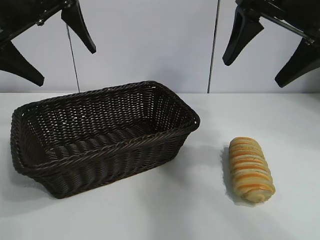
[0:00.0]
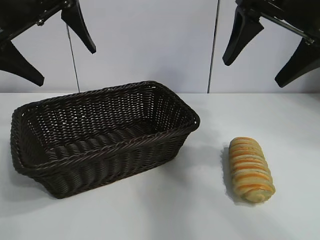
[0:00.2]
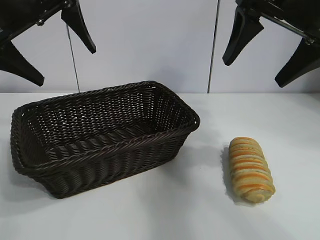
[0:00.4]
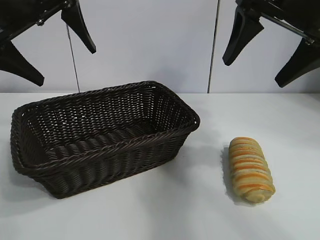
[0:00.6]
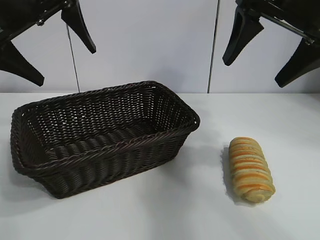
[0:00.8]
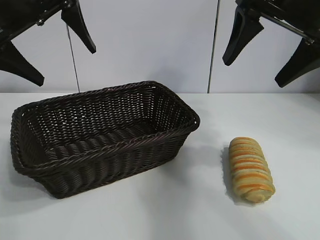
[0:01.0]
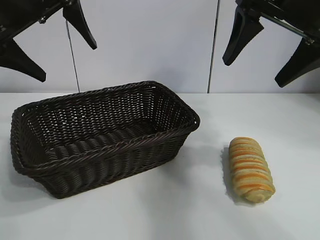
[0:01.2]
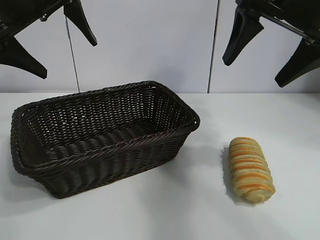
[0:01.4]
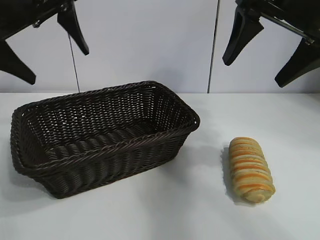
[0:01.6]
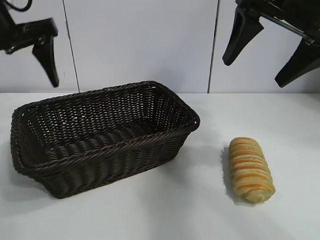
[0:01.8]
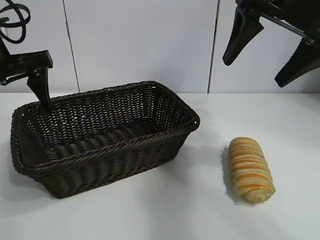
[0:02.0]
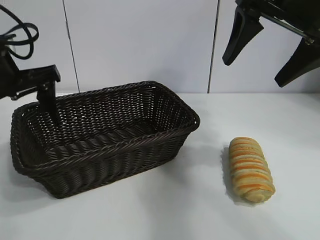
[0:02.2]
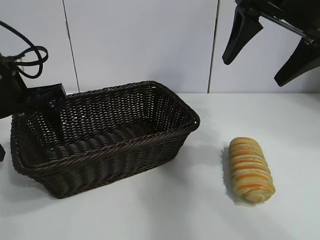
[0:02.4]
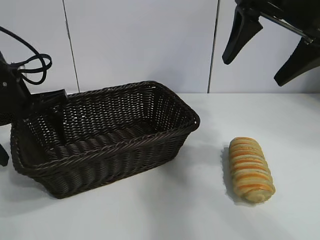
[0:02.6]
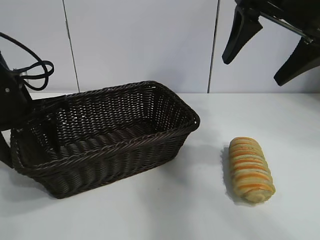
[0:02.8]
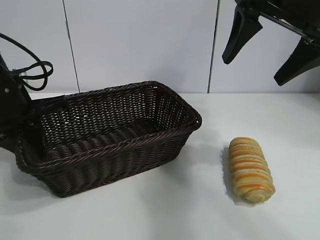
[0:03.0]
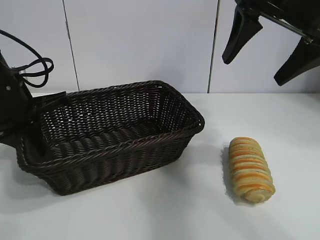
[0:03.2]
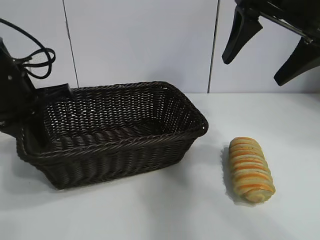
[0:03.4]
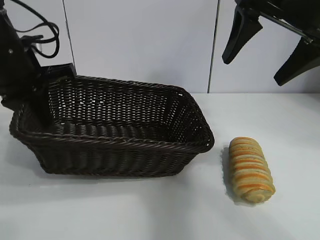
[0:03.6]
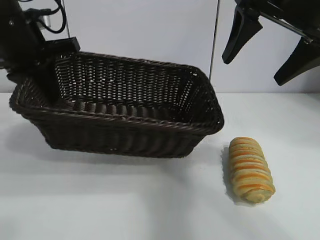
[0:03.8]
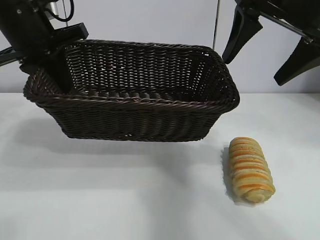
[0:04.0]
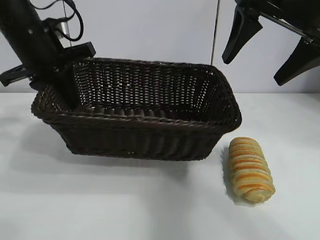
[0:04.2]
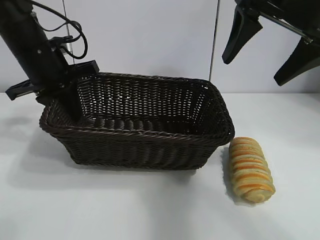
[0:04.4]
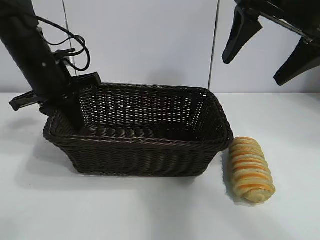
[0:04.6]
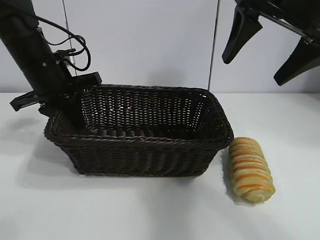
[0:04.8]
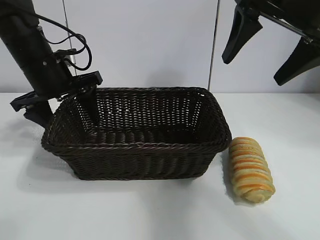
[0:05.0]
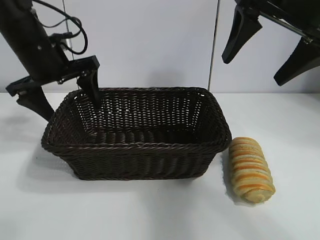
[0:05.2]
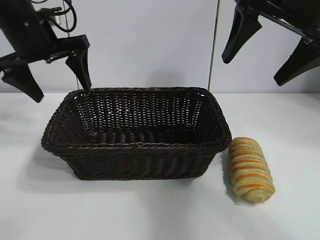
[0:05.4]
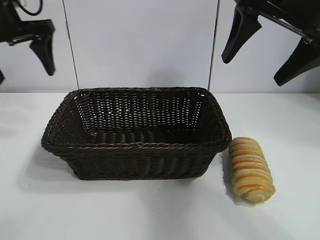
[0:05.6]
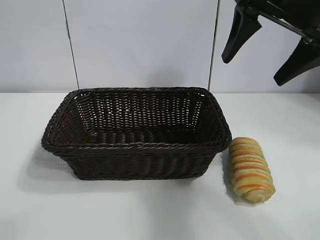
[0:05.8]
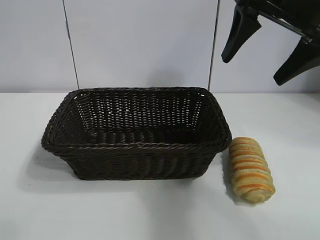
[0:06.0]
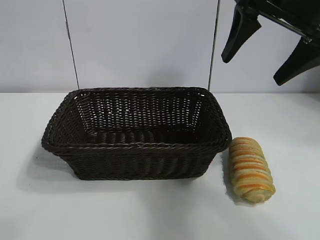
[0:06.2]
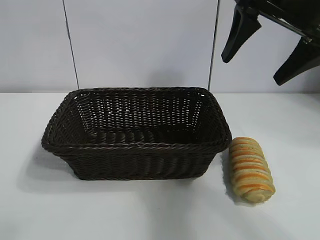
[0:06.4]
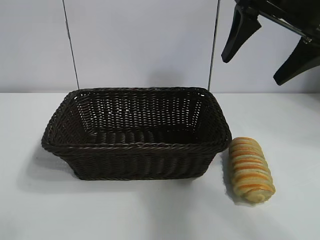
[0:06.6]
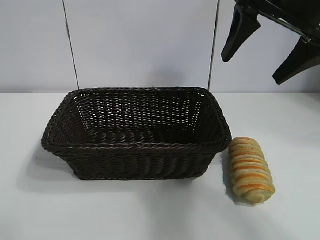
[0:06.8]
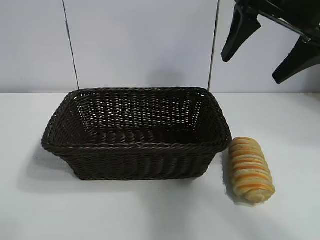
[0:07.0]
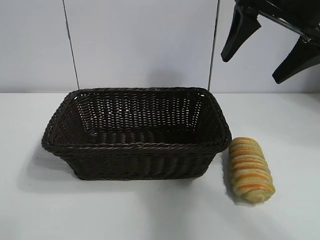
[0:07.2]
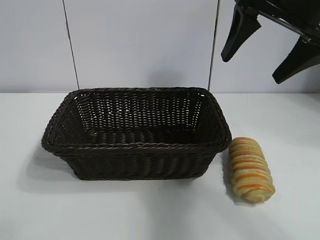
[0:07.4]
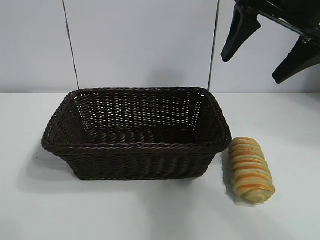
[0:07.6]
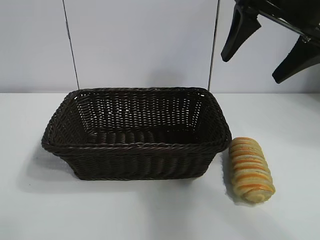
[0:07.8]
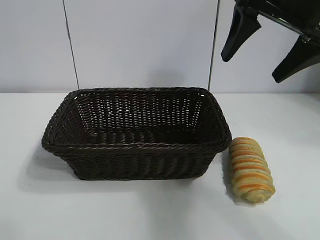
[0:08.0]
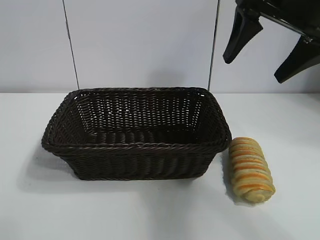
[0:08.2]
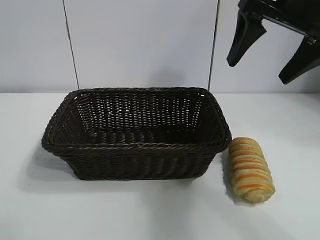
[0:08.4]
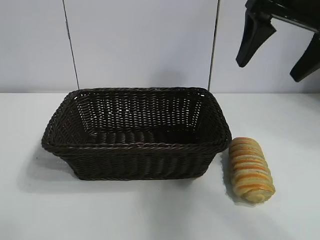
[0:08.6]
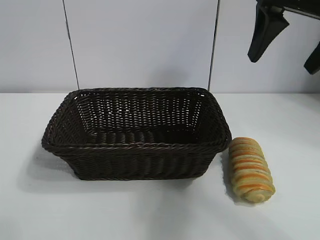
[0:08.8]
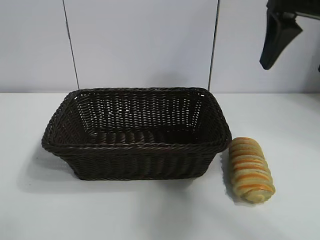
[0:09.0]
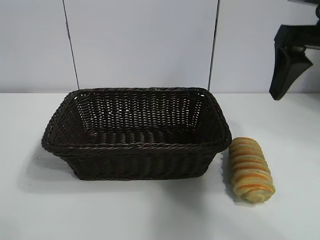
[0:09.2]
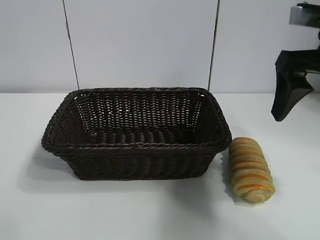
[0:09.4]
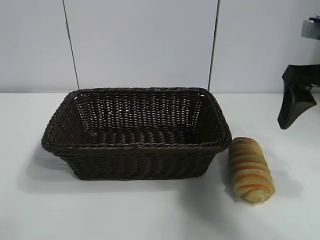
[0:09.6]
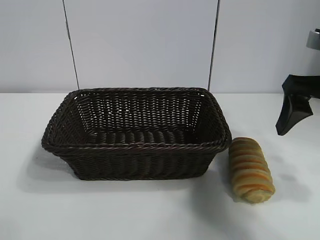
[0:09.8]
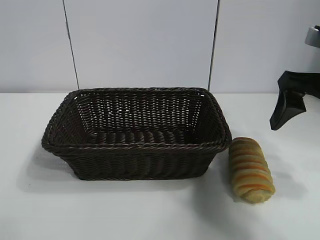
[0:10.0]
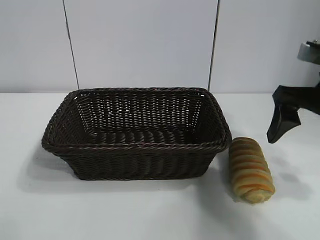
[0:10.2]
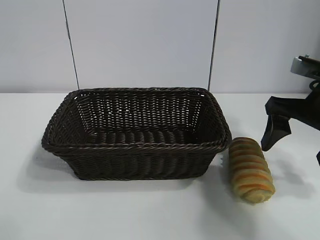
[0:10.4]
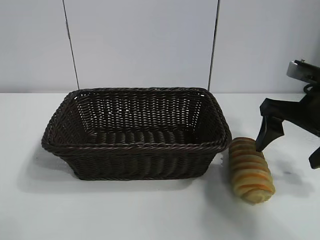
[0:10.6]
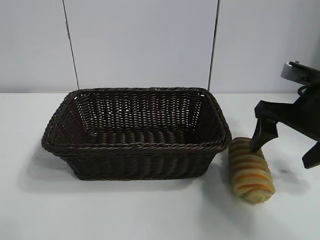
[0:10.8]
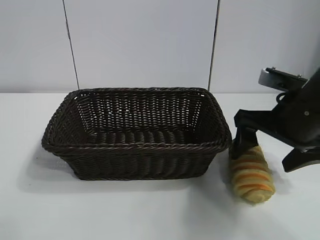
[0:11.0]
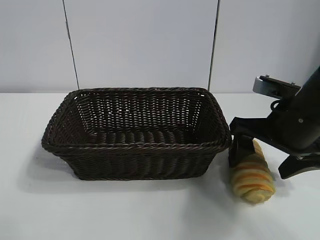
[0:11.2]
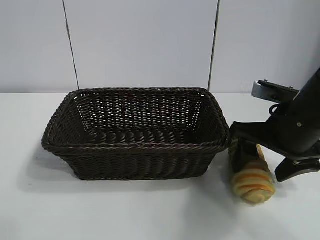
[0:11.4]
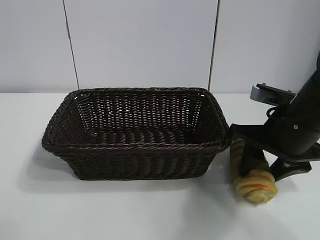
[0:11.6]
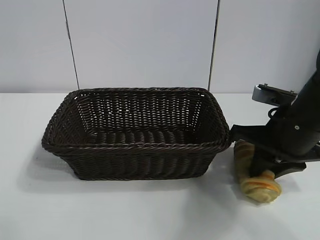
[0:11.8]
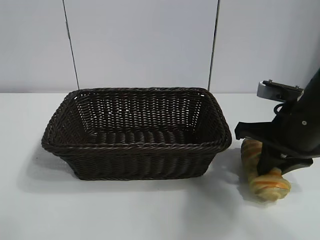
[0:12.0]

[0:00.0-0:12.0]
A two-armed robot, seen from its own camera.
Task of the whole recording: pick up the long bread and put it into the basket.
Step, 0:01.2 to 0:03.0: Grasp the basket with the left gripper.
Step, 0:03.2 to 0:05.0: Place the basket in the center of the table with the left gripper.
Step, 0:05.2 to 0:11.8: Grasp the long bread with right gripper.

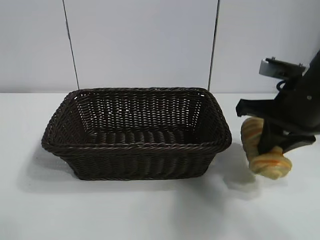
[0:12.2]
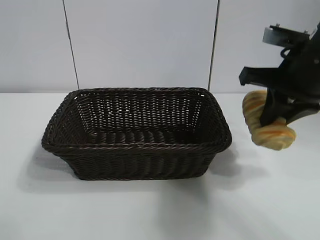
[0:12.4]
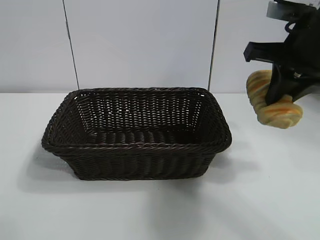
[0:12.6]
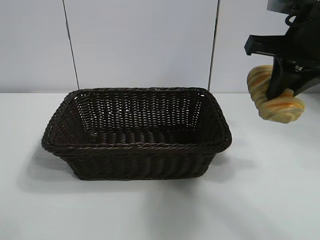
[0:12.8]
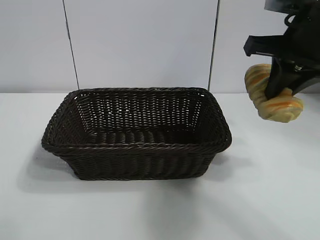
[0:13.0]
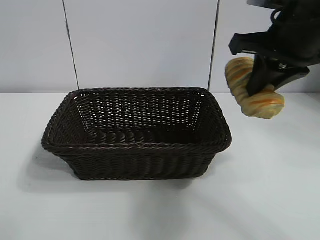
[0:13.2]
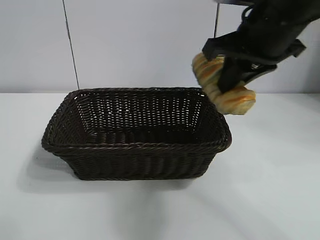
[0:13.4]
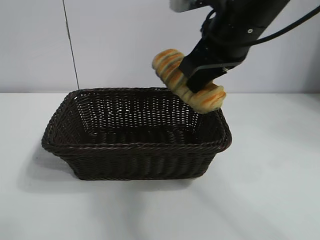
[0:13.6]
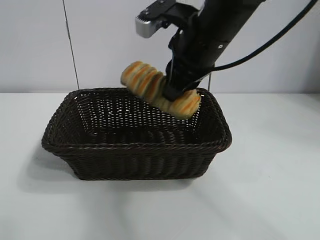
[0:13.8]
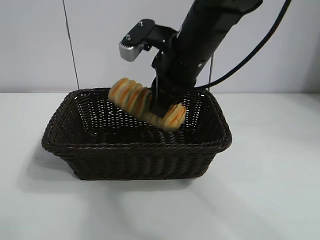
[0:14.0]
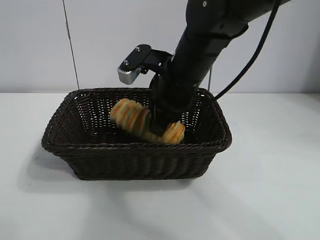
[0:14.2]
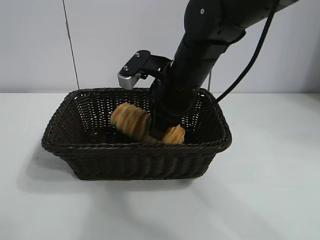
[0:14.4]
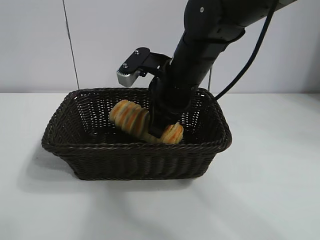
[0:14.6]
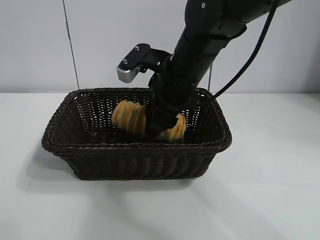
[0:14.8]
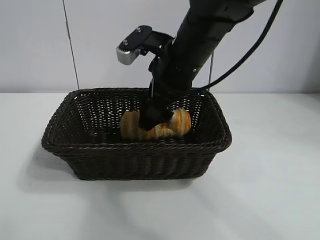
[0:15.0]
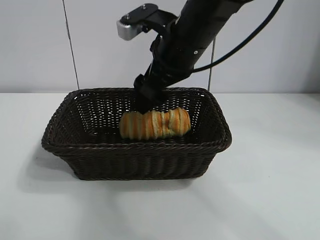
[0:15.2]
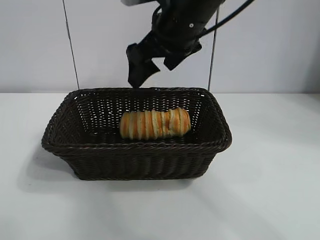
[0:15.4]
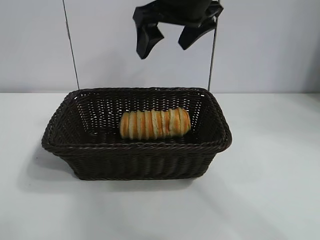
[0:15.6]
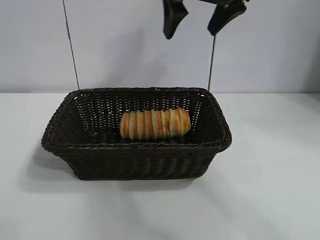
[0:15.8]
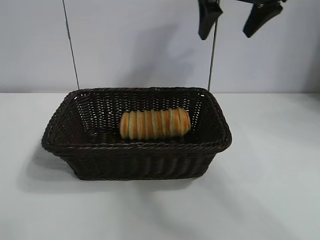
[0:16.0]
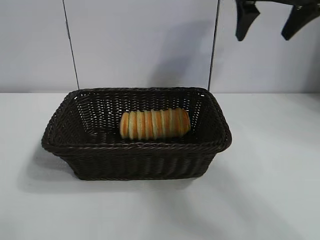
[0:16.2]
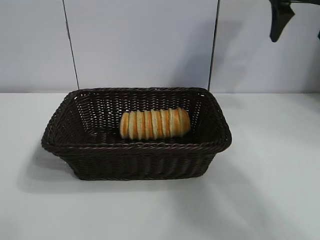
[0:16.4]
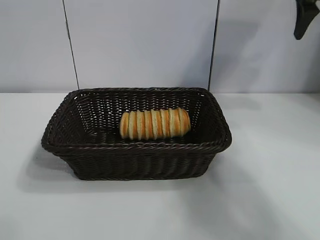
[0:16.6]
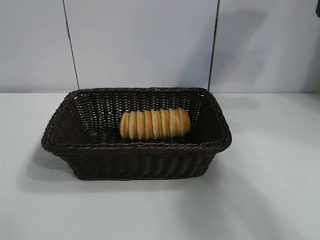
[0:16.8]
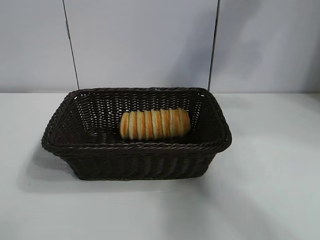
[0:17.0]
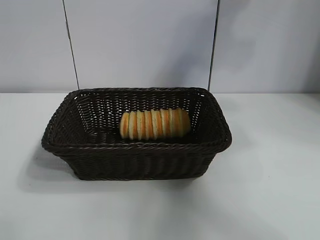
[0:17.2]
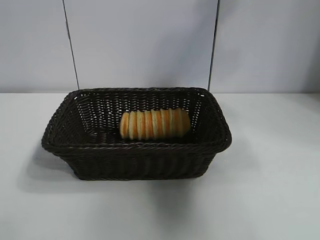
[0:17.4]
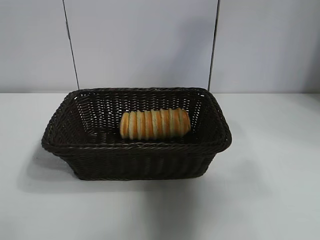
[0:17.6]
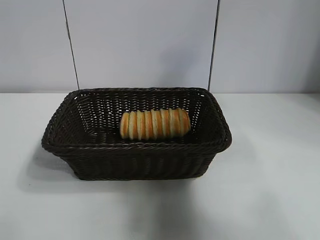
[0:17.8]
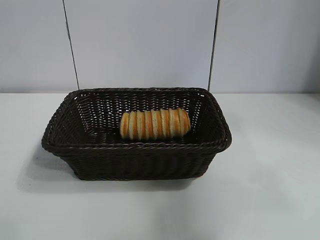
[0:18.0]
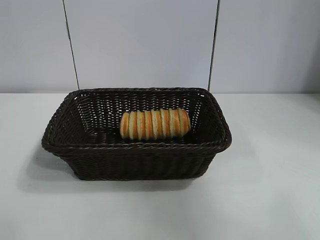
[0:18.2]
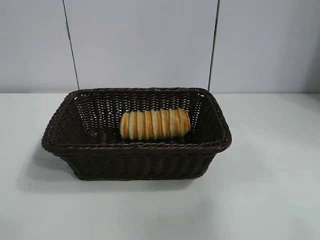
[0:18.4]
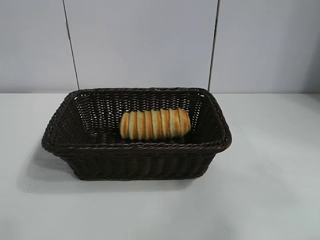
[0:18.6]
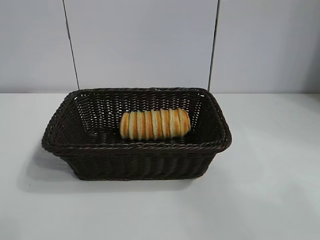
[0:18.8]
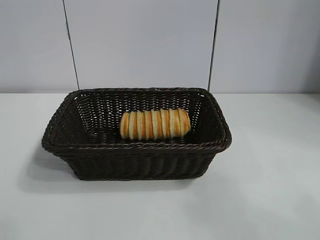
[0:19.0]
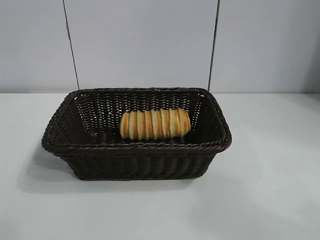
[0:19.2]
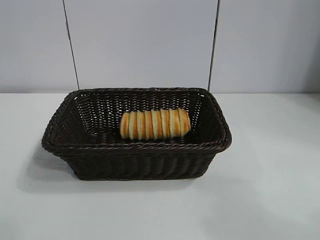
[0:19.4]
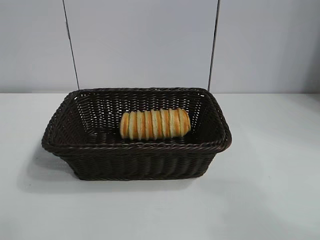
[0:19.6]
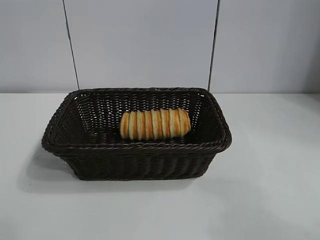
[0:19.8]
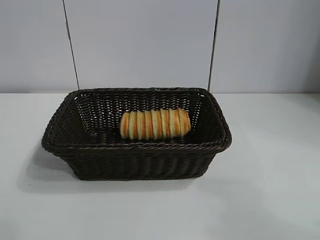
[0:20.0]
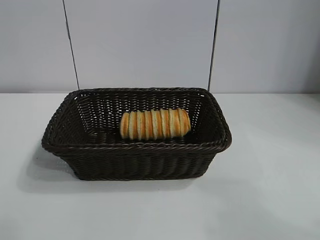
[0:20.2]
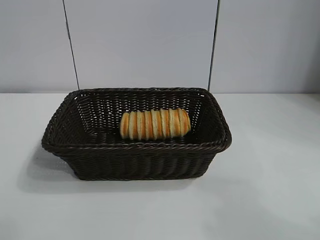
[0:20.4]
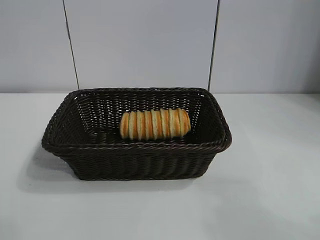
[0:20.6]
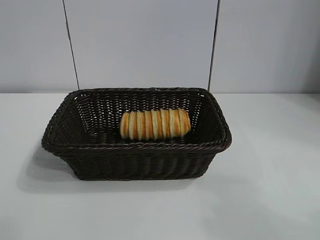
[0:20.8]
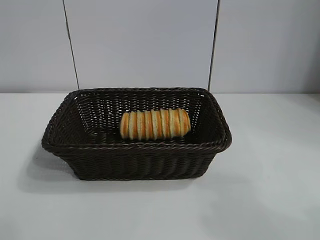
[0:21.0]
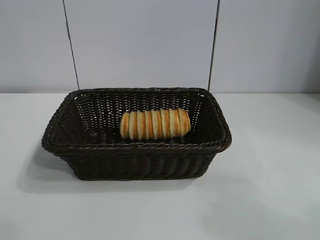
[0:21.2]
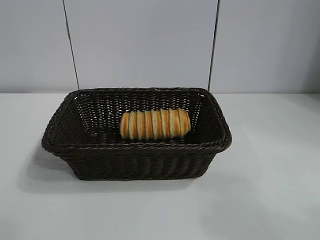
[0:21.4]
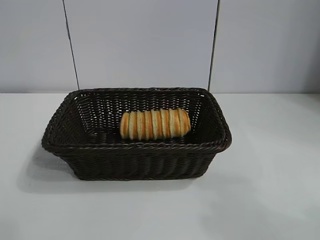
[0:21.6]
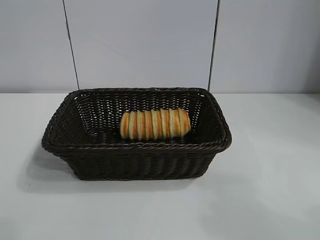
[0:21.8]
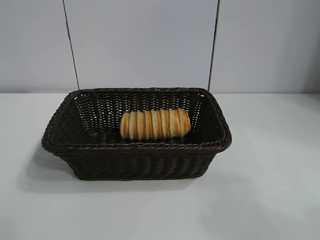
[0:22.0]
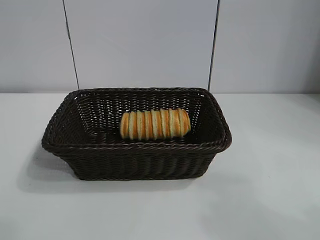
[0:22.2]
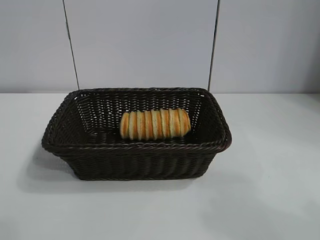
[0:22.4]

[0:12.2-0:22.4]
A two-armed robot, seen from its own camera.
Task of the whole recording: pick up the long bread and put it into the basket.
Step, 0:12.2 to 0:15.2: Place the long bread in the basket with right gripper.
